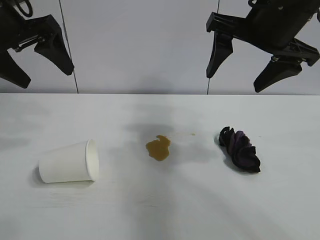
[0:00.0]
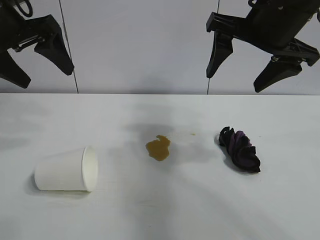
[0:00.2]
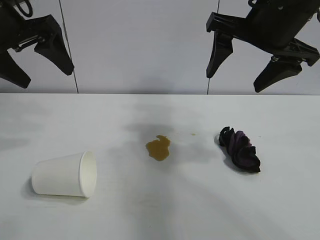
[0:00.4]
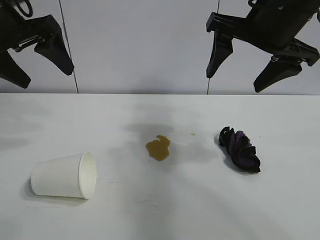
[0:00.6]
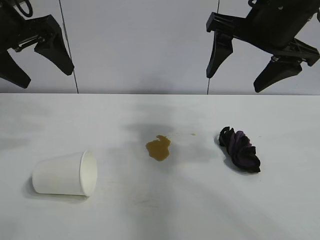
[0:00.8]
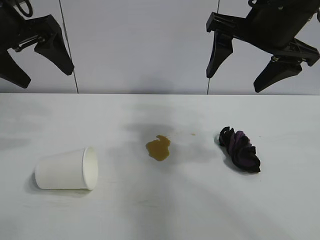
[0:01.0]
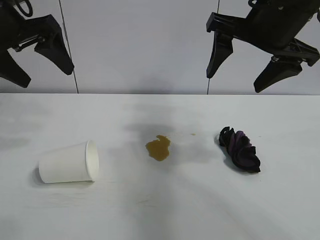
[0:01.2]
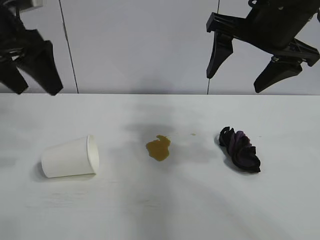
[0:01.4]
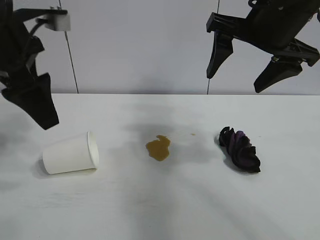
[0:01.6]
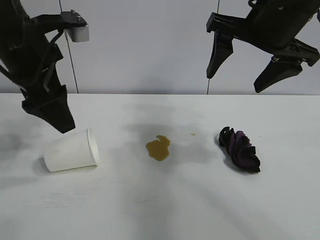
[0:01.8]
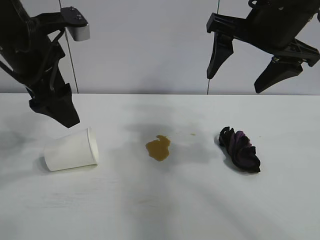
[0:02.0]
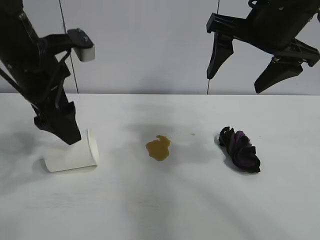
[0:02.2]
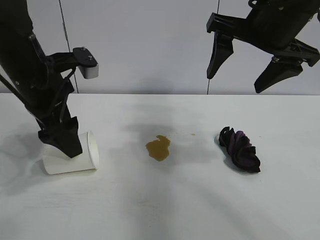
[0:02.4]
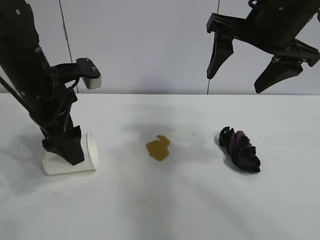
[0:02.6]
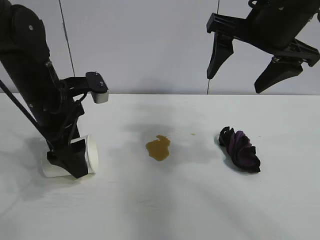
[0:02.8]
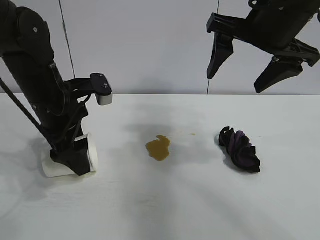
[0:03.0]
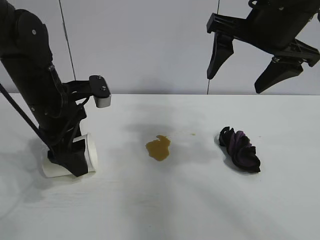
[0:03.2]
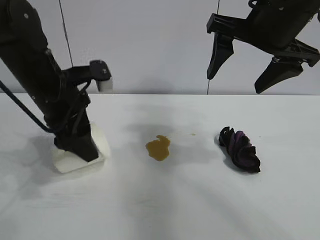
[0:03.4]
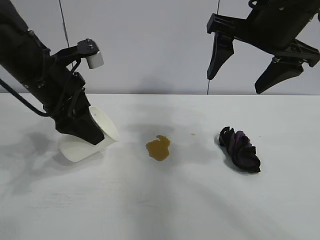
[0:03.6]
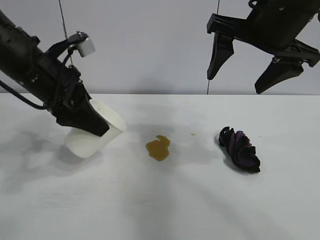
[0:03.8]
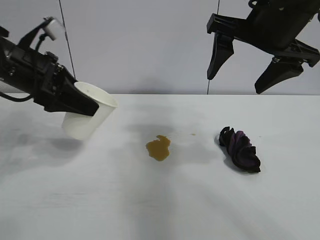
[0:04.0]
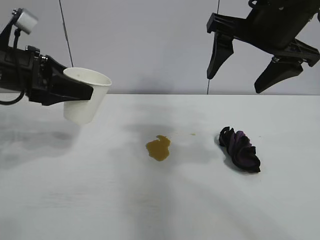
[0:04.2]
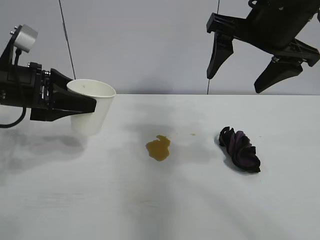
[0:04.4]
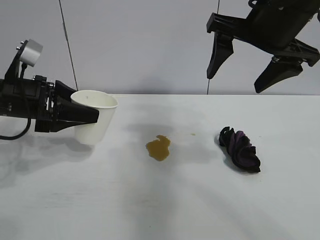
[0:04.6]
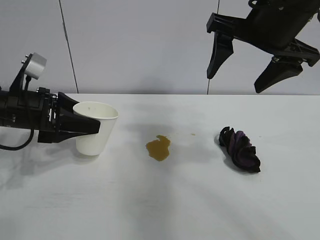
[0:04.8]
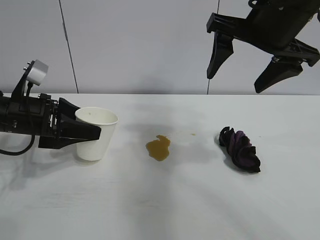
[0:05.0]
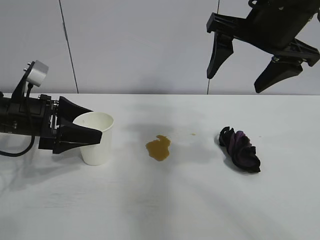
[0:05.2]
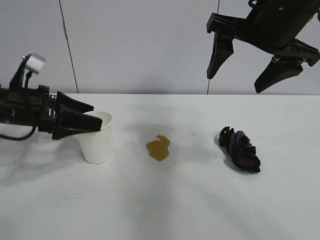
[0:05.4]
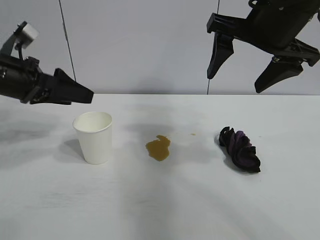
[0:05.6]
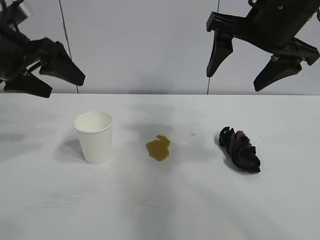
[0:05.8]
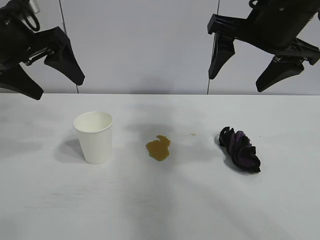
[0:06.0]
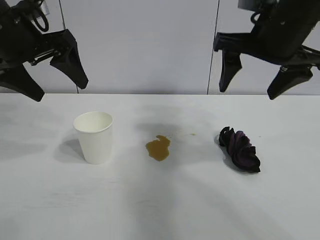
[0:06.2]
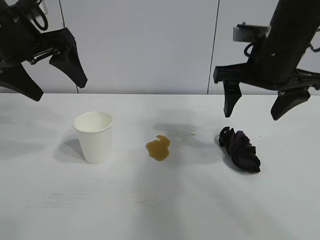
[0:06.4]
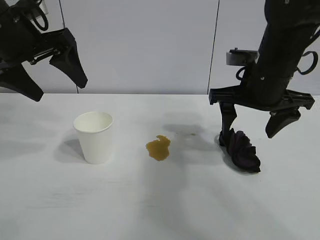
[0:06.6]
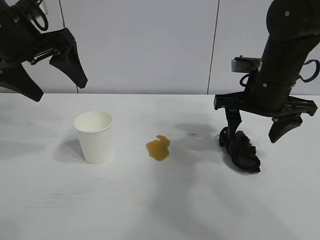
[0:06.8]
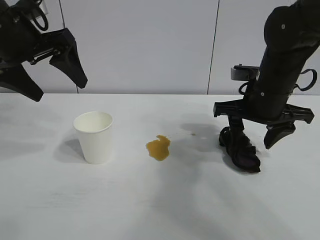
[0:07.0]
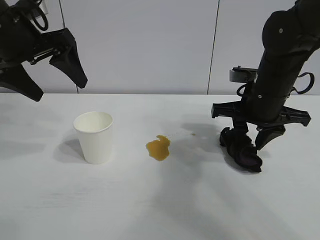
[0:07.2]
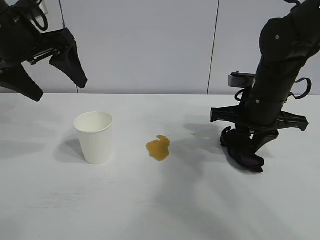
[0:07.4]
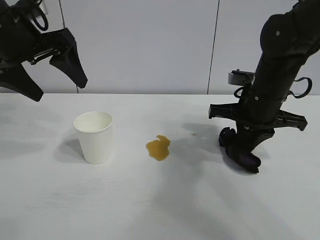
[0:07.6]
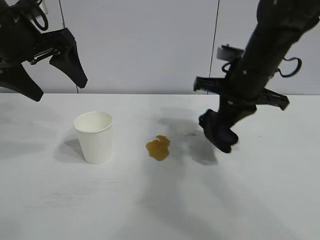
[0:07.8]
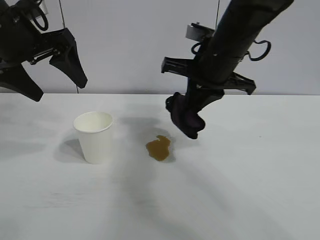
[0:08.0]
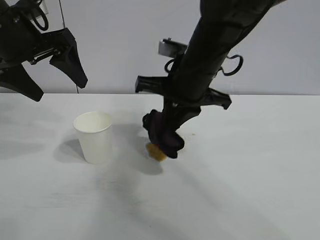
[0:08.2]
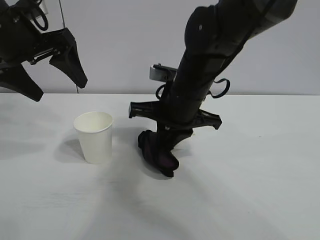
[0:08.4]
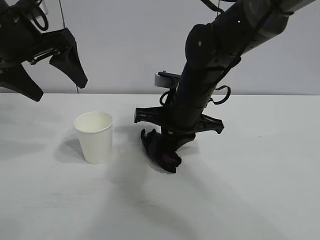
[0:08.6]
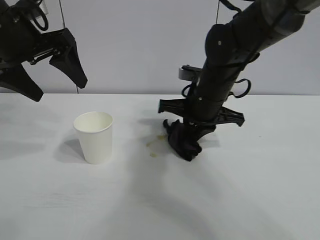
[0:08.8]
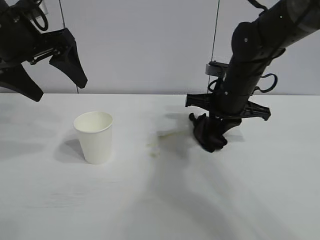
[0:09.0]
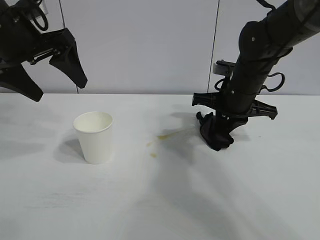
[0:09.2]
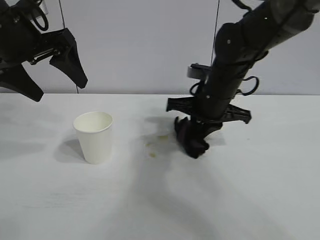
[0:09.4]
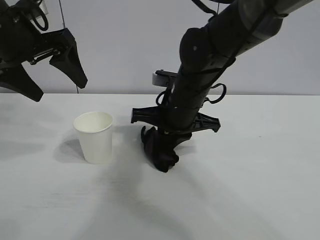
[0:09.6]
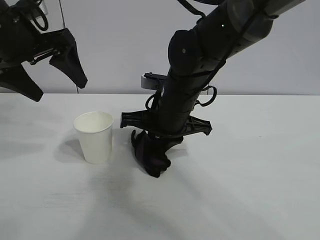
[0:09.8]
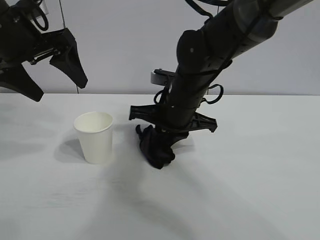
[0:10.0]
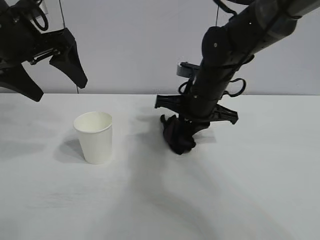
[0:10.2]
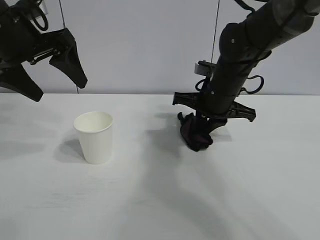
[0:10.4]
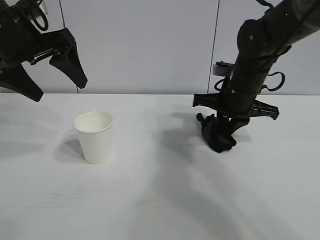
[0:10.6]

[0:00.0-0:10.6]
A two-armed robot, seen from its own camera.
Task of the whole recording: the left gripper pick up the fallen cup and place it upright, the right gripper grasp the black rag and wipe the stain on the table, the right gripper put the black rag back in its original position.
Step, 0:01.2 to 0:03.2: Grasp the paper cup with left gripper.
Step, 0:03.4 to 0:05.0: Stand the paper cup upright with left gripper.
Step, 0:05.2 to 0:07.4: Grasp the rag with right gripper.

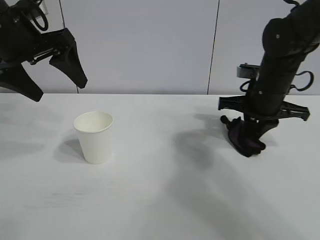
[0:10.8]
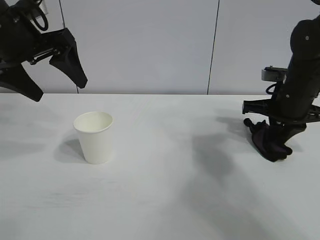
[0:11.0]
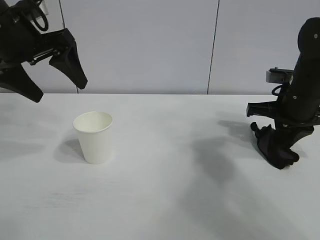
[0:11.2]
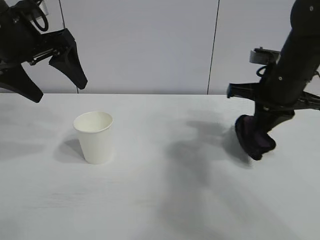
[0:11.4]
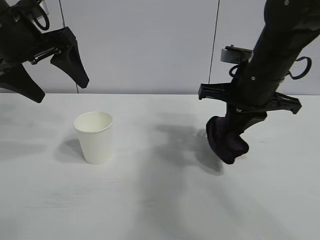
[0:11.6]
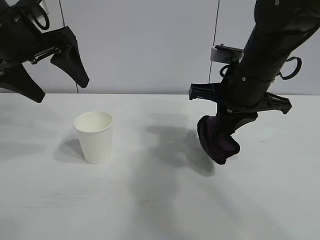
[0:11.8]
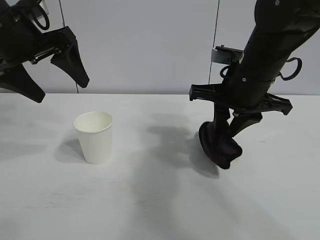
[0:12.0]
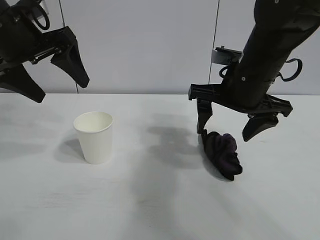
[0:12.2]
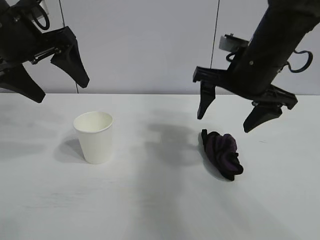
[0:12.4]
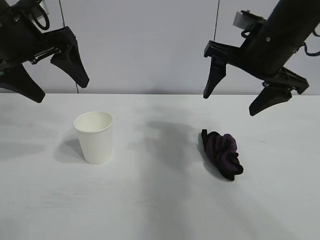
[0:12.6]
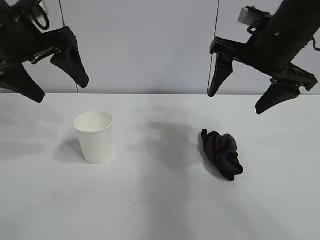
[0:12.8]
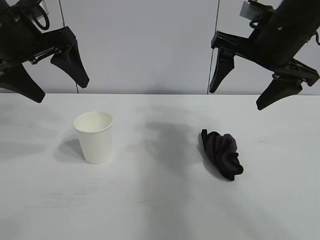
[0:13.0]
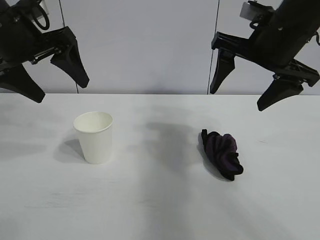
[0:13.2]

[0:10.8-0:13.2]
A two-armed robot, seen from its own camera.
Task of the whole recording: the left gripper pick up the fallen cup and place it upright, the right gripper grasp the black rag and wipe the stain on the table, the right gripper put the black rag back in its original position.
Step, 0:11.4 to 0:12.2: Place the rag on the table with right gripper.
